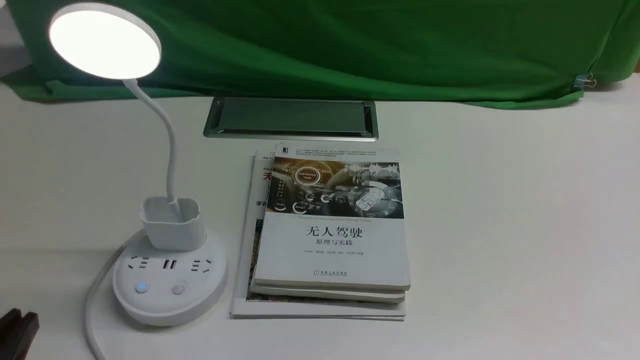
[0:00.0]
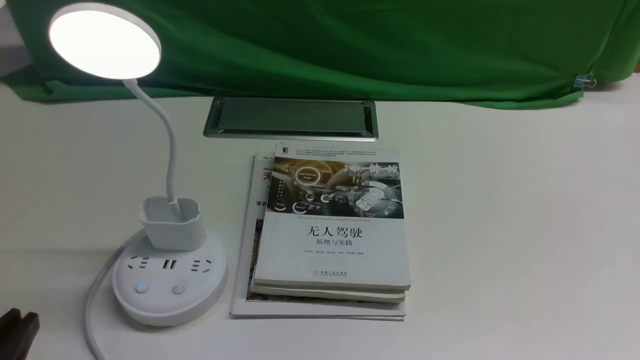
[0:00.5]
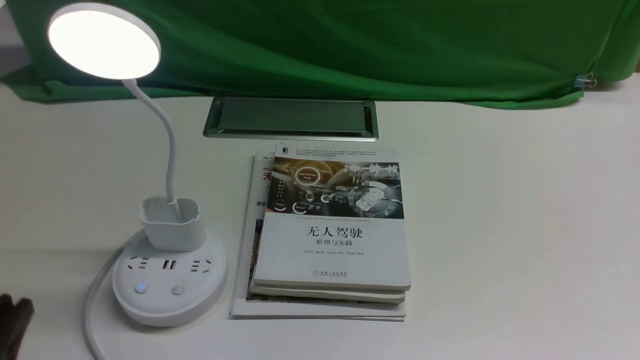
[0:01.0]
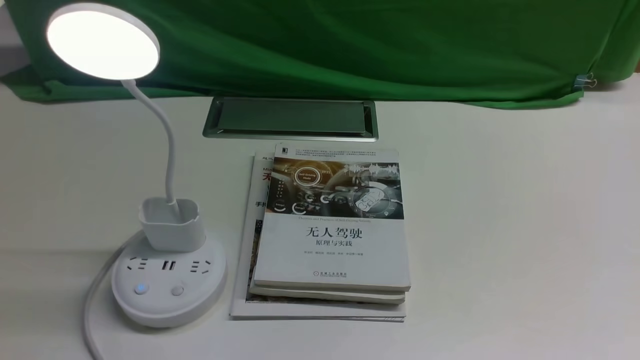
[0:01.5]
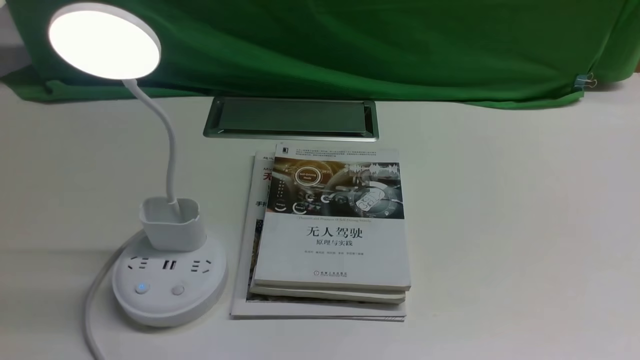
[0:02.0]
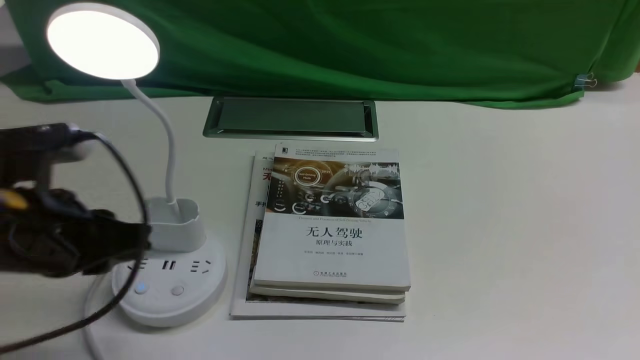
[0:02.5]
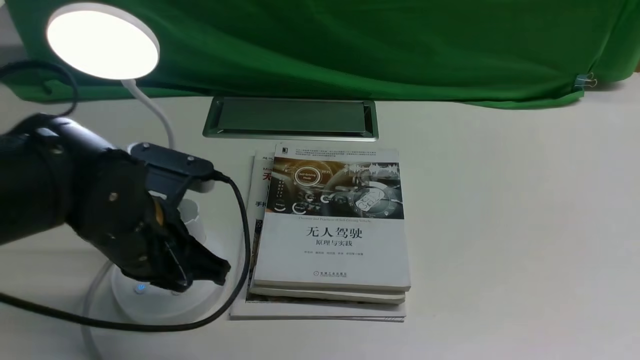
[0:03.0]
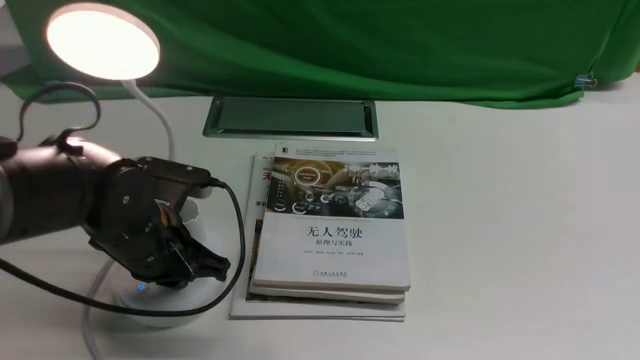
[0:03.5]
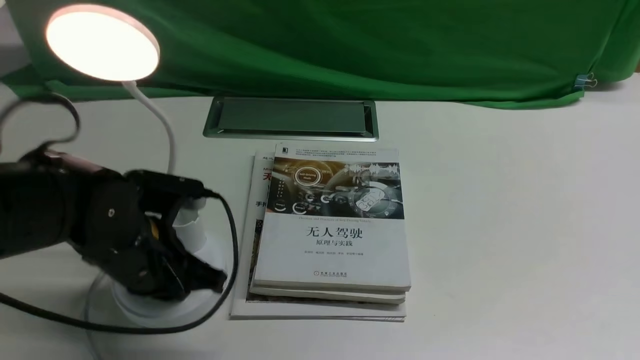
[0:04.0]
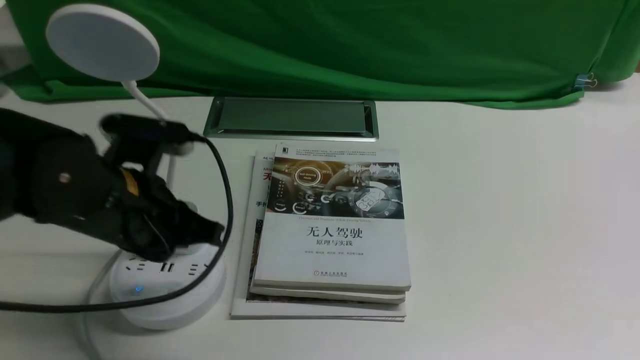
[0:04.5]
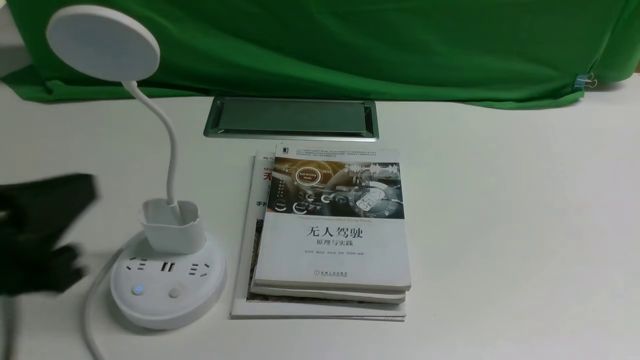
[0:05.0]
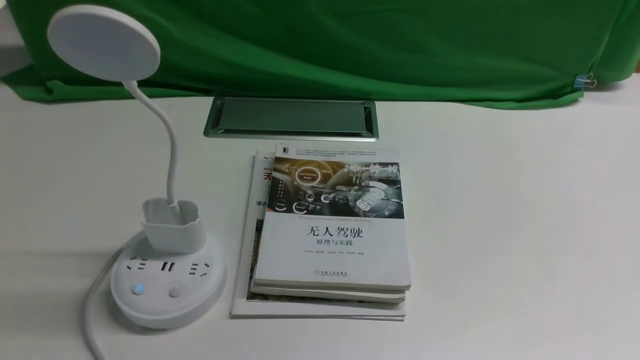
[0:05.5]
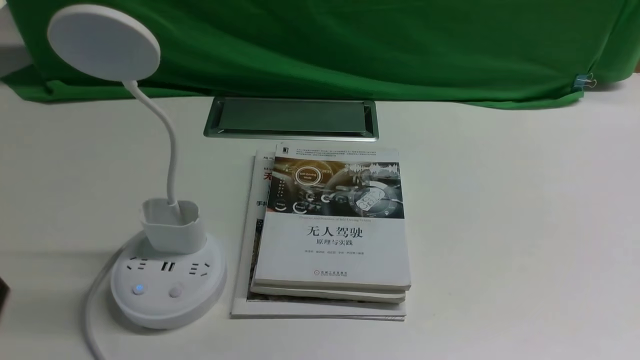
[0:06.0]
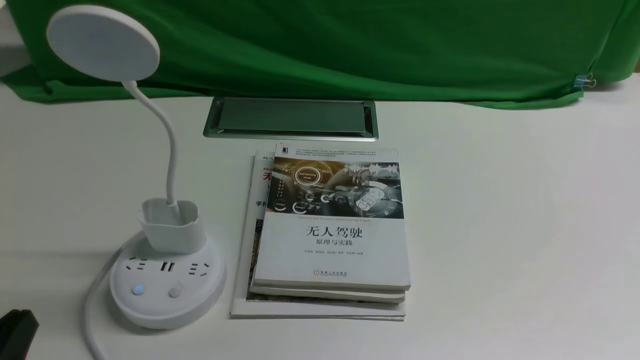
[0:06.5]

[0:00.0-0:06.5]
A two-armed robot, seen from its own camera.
Task of the whole recording: turn off the desk lamp on the white desktop by hand.
Step, 0:00.0 to 0:04.0: use the left arm to press the button switch on the lamp holder.
0:00.0 to 0:02.0: The left gripper travels upward by about 15 cm, and opens.
0:02.0 to 0:04.5: The left gripper travels forward, downward and to the right by about 20 cm, and closes up.
0:04.5 to 0:06.5: The left gripper travels backward and to the left by about 20 cm.
